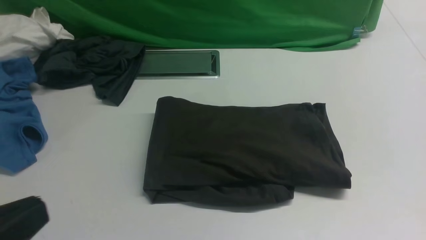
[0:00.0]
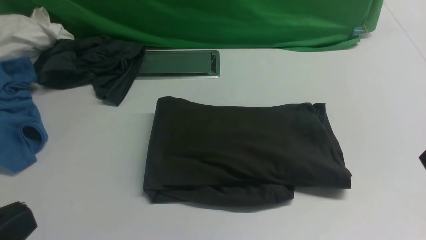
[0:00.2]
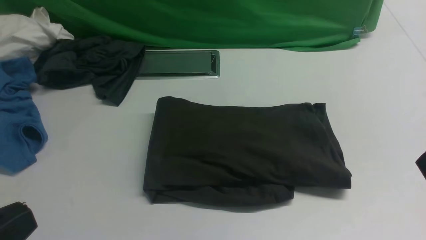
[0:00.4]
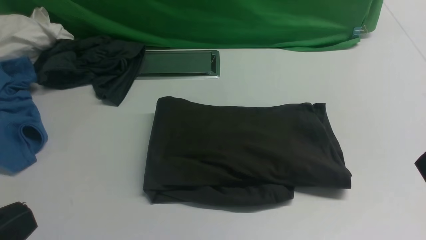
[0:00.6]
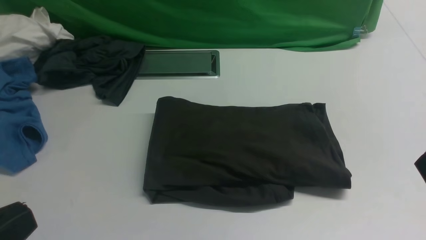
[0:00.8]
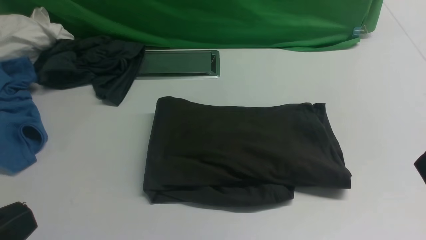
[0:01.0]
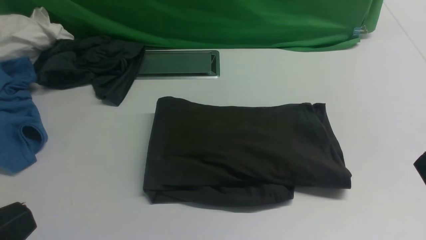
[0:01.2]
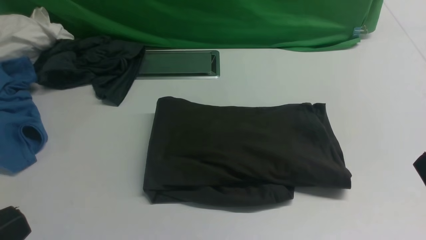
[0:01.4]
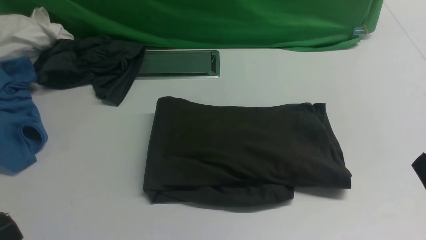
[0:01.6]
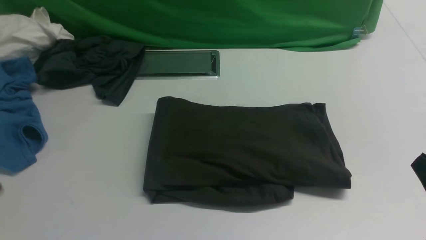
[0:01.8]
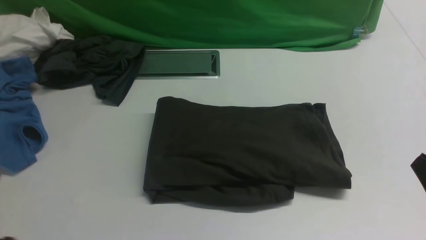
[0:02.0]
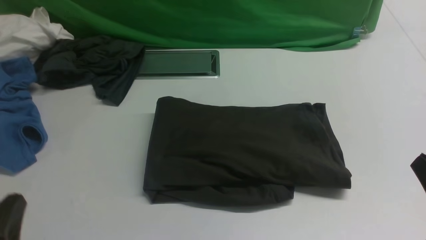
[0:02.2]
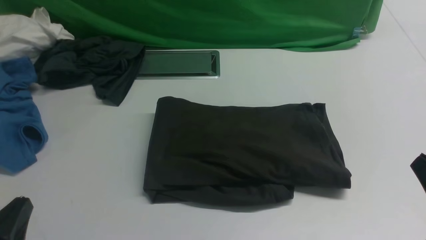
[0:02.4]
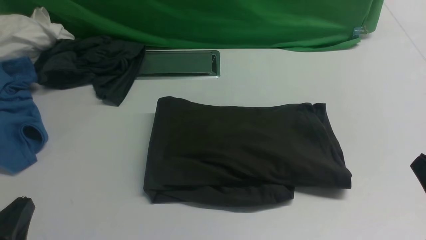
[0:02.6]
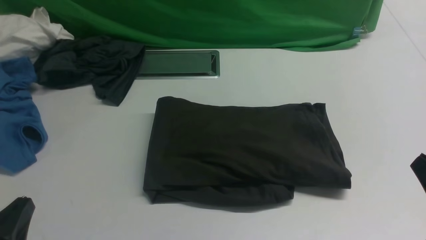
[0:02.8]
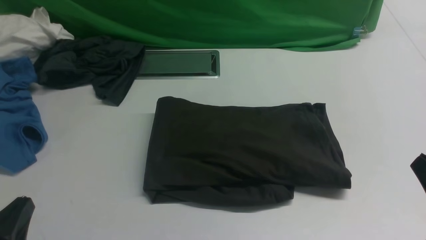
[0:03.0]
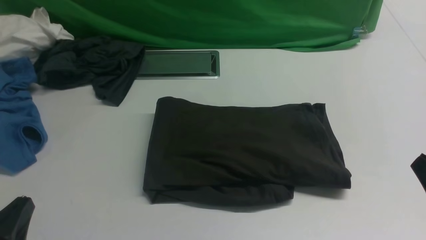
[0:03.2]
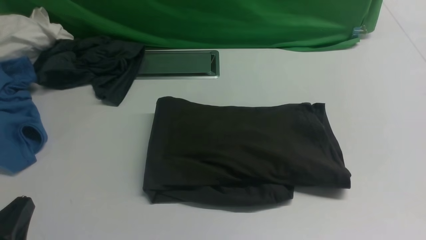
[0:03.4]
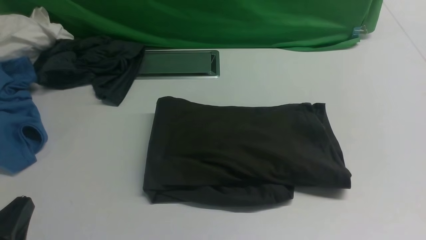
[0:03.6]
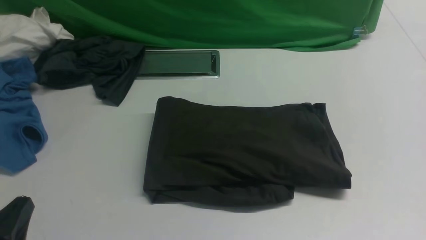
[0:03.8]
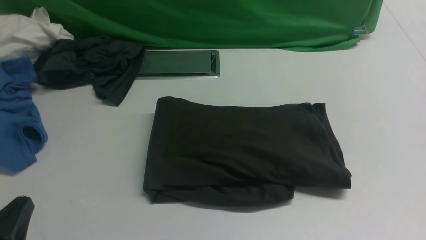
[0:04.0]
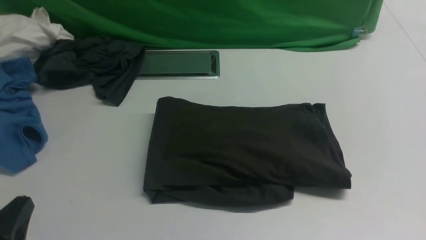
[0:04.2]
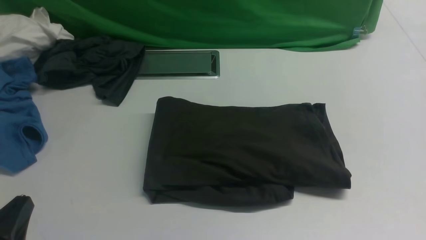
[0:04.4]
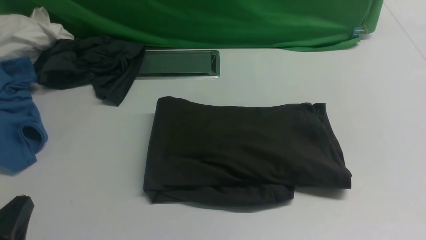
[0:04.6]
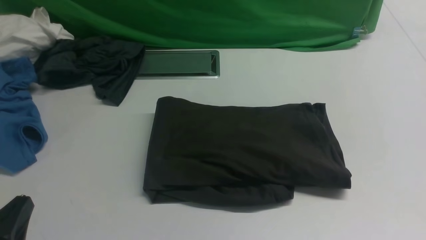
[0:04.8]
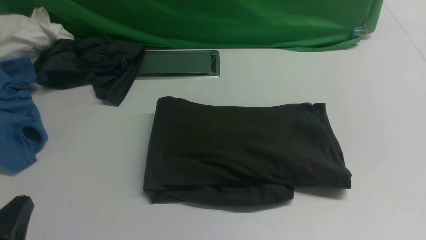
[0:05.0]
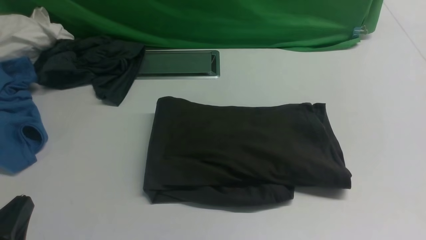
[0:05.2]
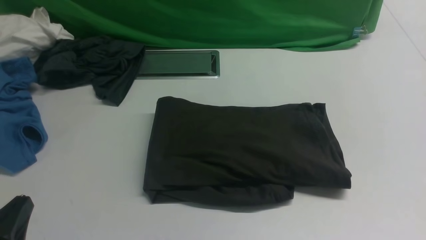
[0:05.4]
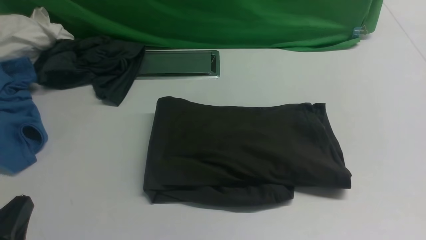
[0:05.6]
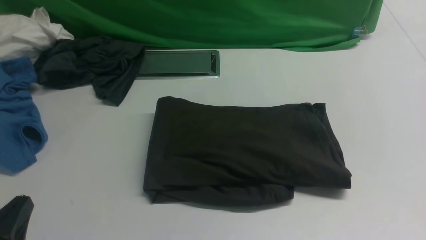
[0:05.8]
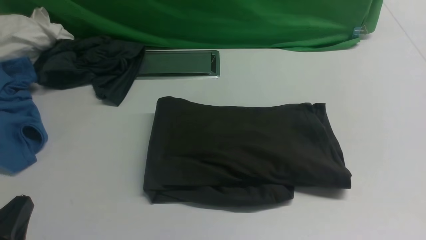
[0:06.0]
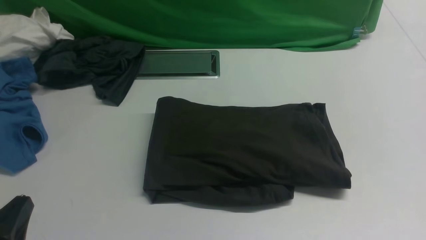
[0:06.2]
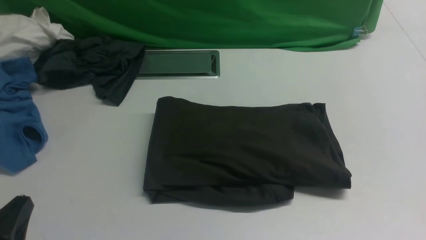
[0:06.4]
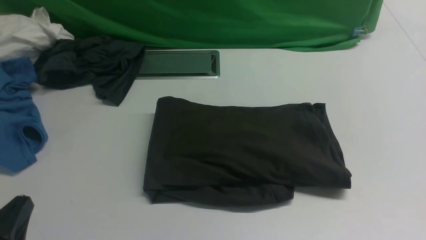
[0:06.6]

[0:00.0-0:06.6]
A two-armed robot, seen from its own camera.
0:00.0 to 0:01.6: The grippers stay close to where they were, moving slightly.
0:01.6 to 0:03.2: The left gripper shifts about 15 cm downward and forward.
0:05.0 to 0:06.6: Both grippers stay put.

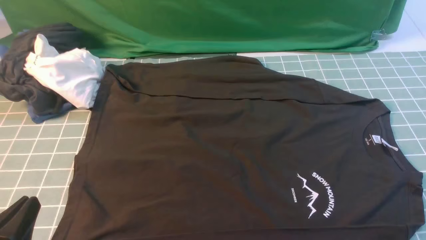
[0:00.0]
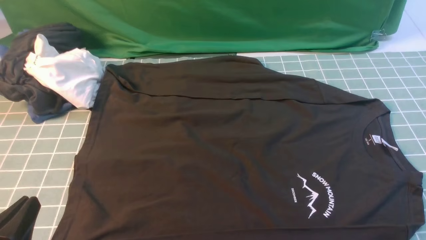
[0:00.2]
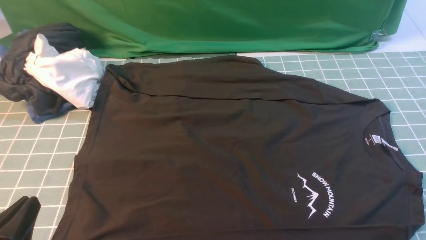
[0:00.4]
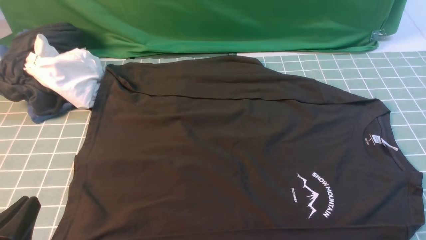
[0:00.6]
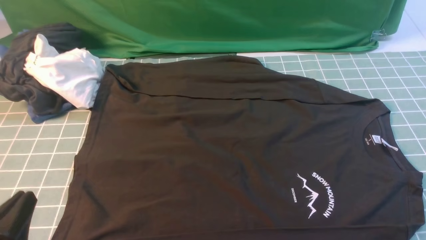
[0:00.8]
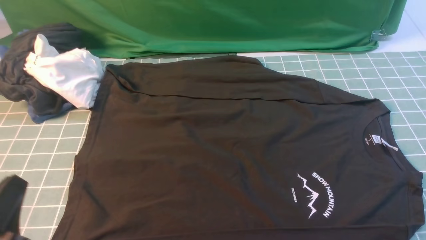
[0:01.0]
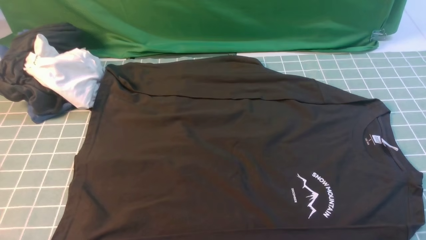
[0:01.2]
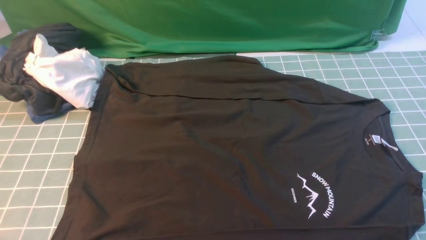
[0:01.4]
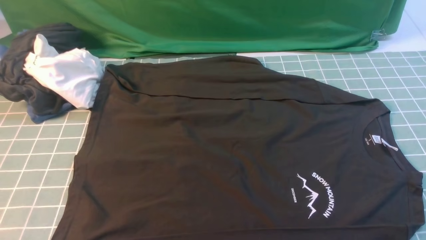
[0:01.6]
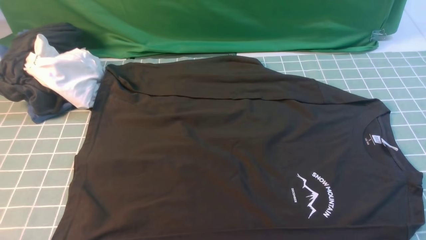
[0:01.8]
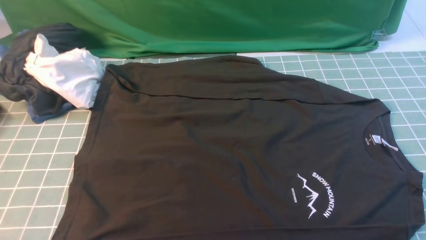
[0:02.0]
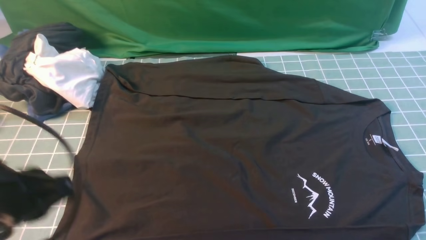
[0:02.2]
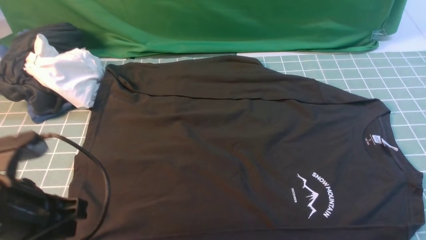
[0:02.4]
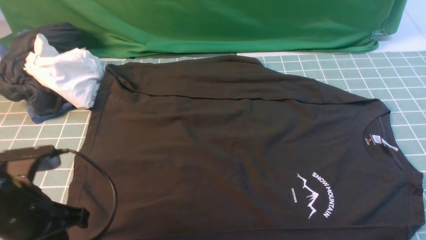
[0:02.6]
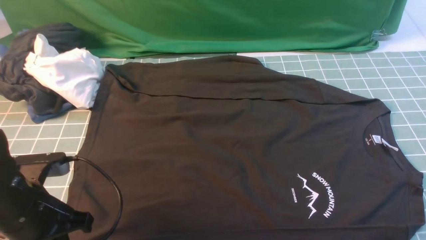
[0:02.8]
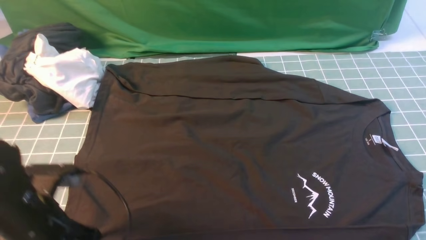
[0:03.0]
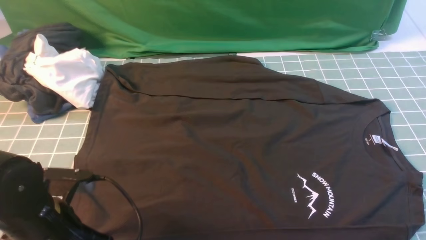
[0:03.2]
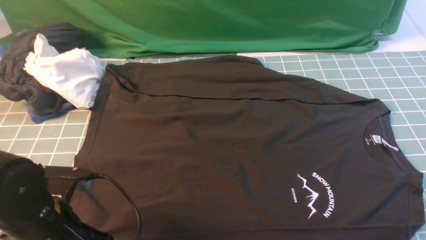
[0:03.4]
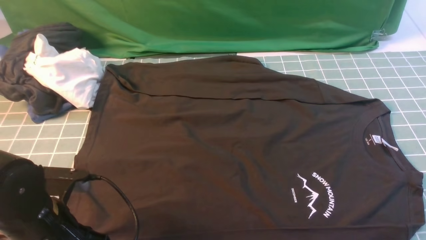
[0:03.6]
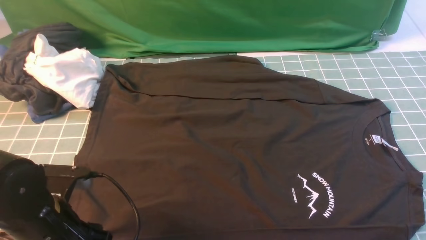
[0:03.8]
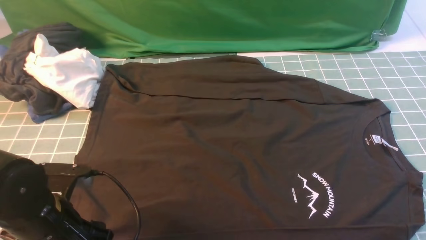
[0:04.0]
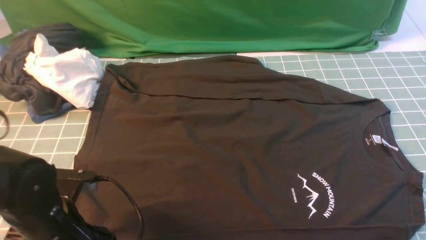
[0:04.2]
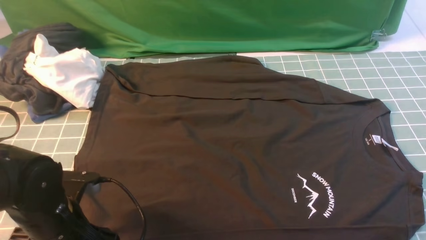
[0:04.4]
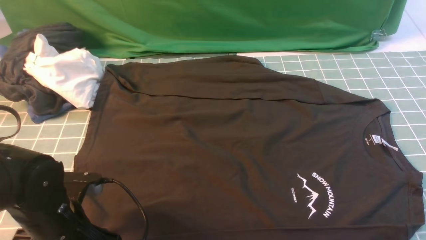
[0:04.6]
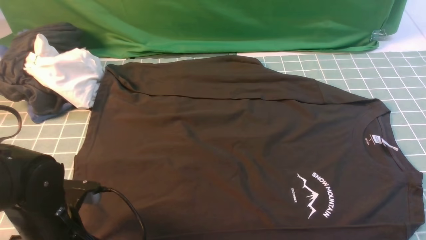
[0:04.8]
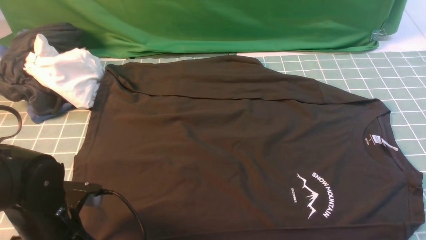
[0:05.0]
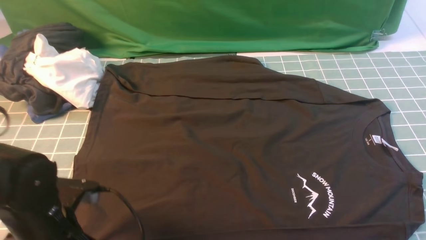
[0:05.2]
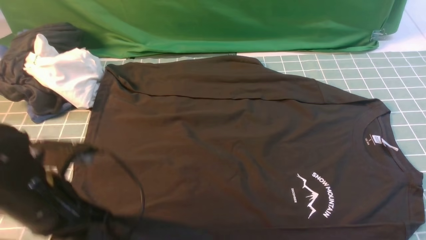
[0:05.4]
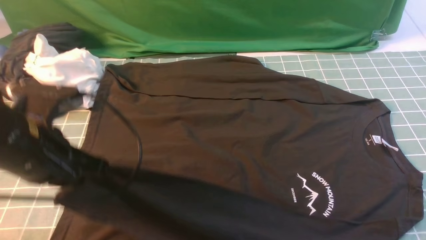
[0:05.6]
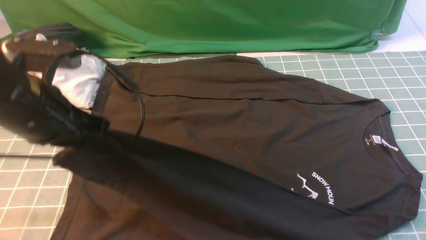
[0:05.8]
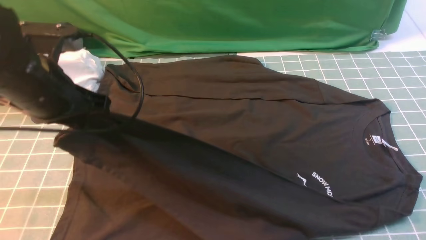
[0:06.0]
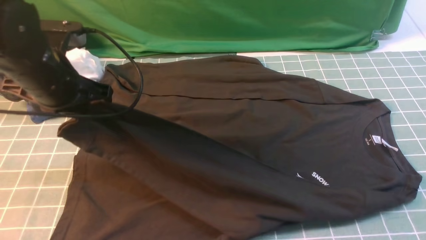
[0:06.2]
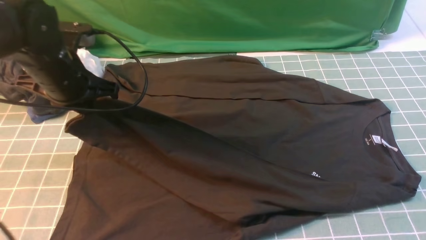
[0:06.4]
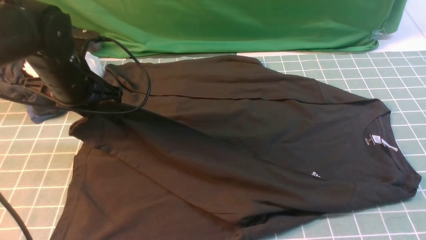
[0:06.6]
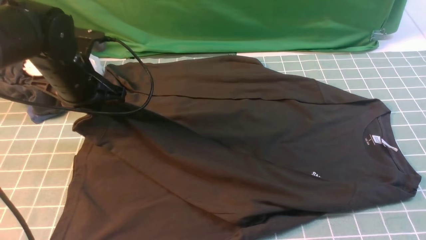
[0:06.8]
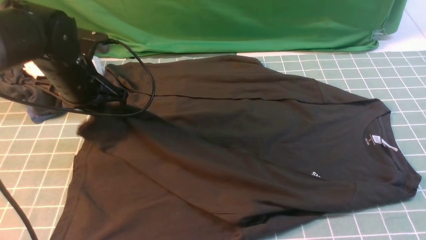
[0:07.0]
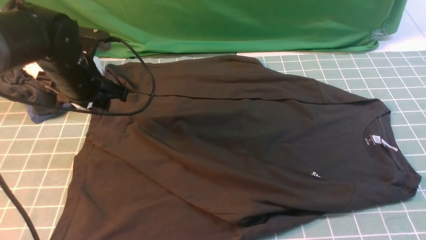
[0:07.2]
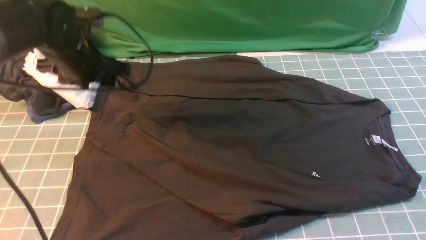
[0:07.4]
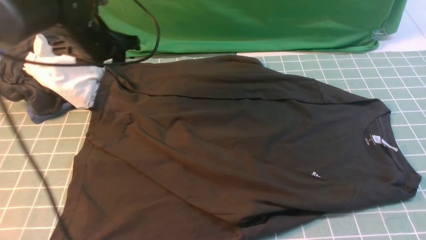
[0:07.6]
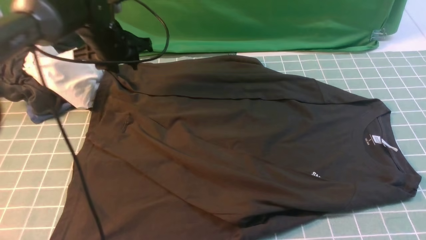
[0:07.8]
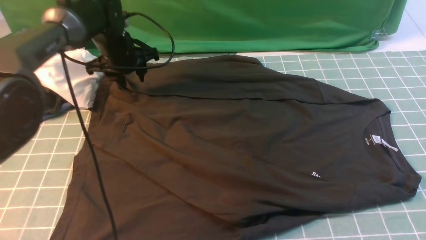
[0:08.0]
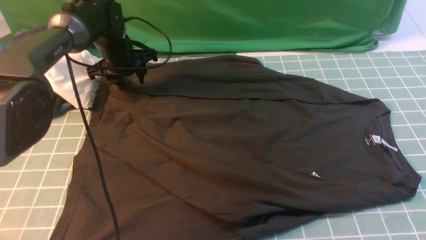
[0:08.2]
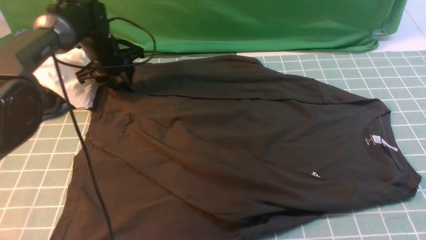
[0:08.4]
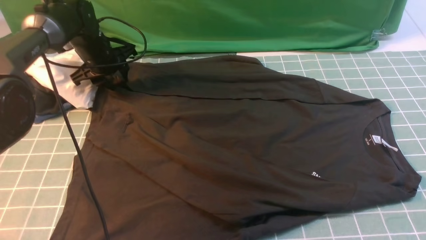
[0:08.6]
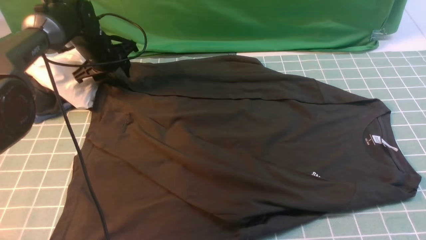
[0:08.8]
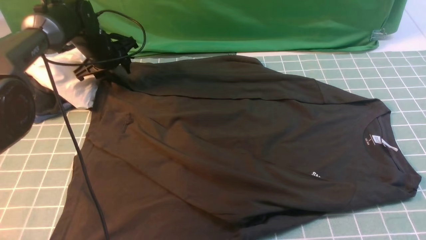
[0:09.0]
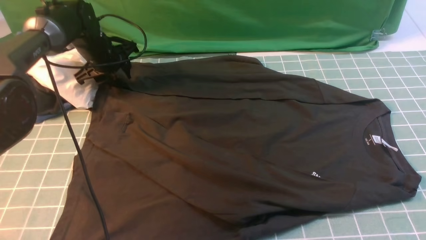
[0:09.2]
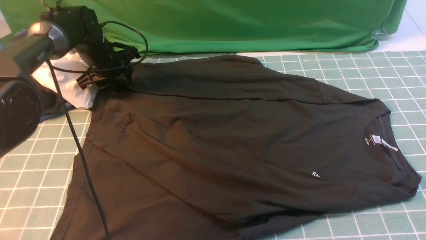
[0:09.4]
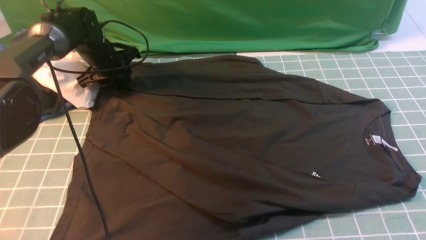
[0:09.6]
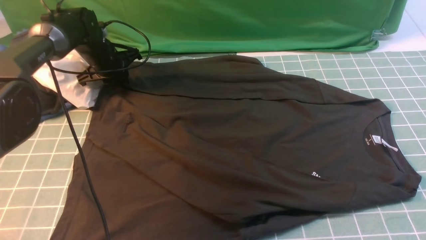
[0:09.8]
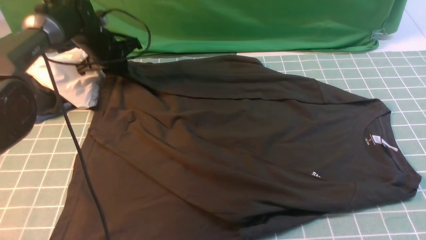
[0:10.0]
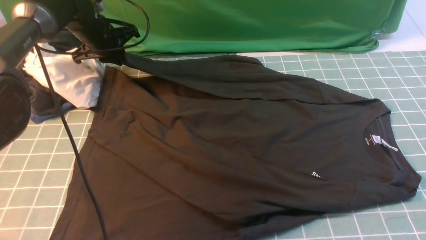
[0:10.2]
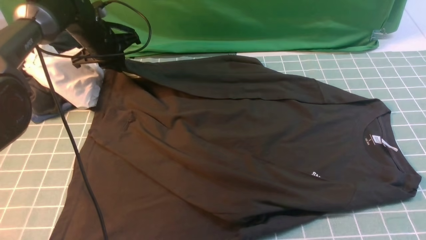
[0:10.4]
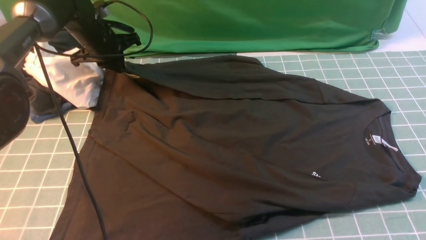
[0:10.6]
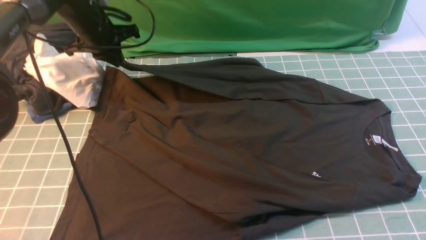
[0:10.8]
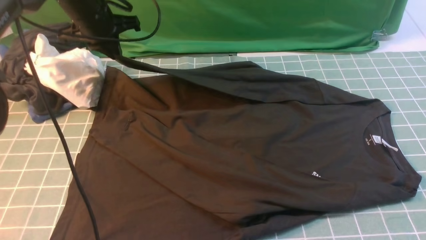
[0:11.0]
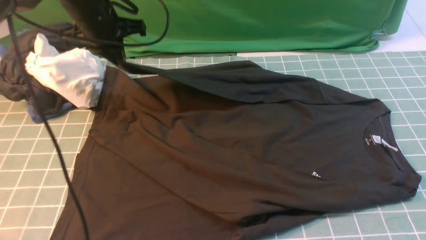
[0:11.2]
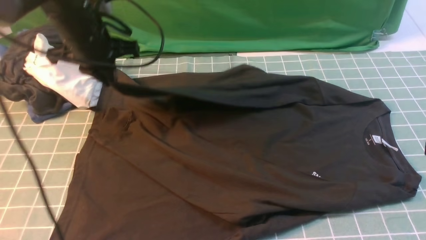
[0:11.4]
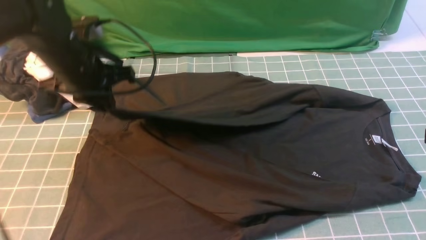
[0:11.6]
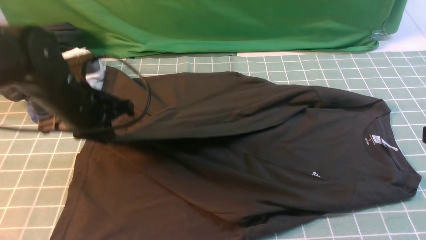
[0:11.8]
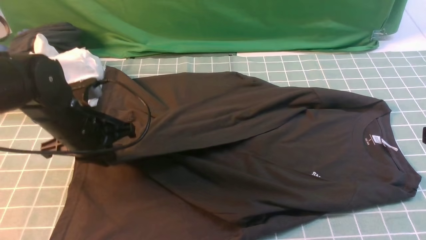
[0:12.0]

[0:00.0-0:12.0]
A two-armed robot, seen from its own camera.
Step, 0:00.0 to 0:05.2: use the left arm to clamp the cuff closest to it.
Step, 0:05.6 to 0:07.2: use the left arm to drag and place the cuff at the centered position on the left edge of the fabric.
Step, 0:07.6 to 0:10.6: use the left arm to clamp the cuff farthest from it.
0:00.0 to 0:01.6: The left gripper is displaced upward by roughly 10 cm.
0:01.6 to 0:03.0: The left gripper shifts roughly 15 cm forward and downward.
0:03.0 to 0:04.4: The left gripper opens up.
0:04.4 to 0:06.0: The left gripper is displaced upward and forward by roughly 20 cm, and closes.
0:06.0 to 0:07.6: The left gripper heads forward, covering approximately 15 cm, and opens up.
0:07.6 to 0:09.0: The left gripper travels forward and downward by roughly 10 cm.
0:09.0 to 0:10.4: The left gripper closes up.
0:10.4 to 0:12.0: The left gripper goes approximately 20 cm backward; the right gripper travels forward by some 5 cm.
